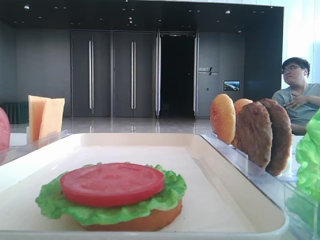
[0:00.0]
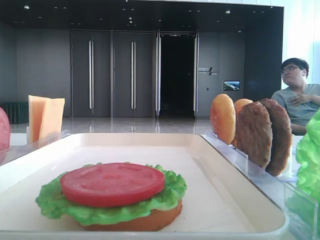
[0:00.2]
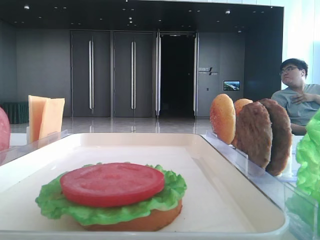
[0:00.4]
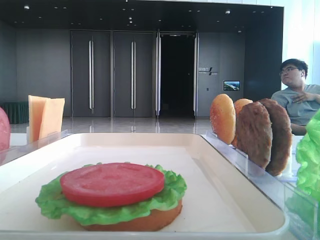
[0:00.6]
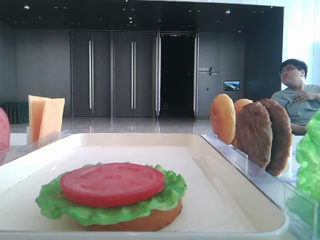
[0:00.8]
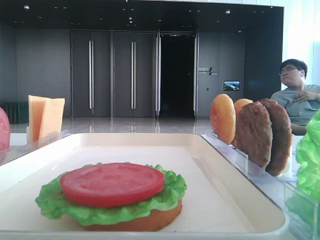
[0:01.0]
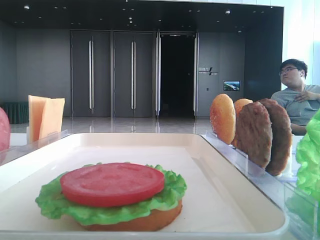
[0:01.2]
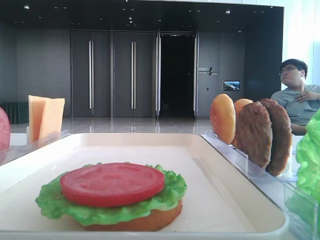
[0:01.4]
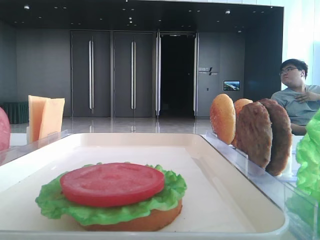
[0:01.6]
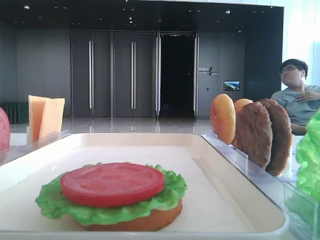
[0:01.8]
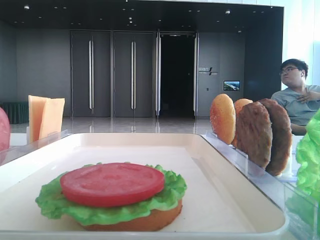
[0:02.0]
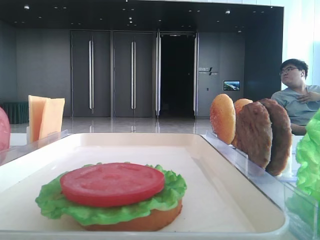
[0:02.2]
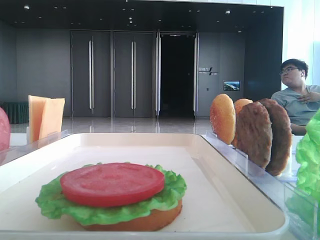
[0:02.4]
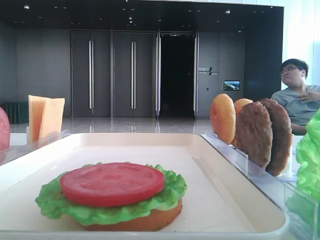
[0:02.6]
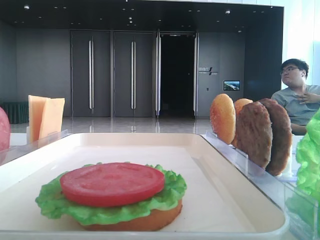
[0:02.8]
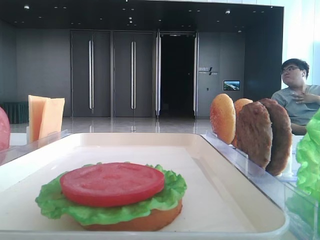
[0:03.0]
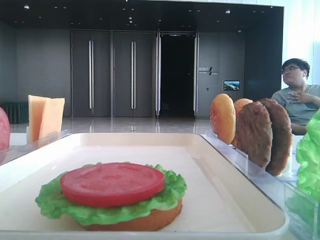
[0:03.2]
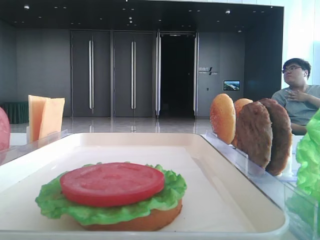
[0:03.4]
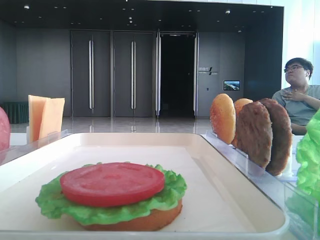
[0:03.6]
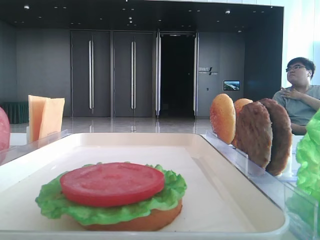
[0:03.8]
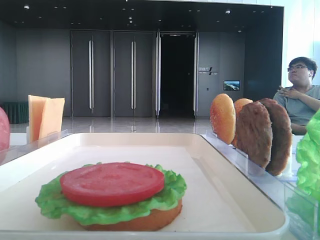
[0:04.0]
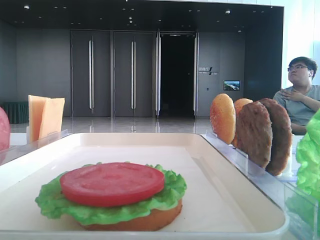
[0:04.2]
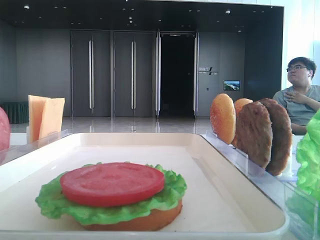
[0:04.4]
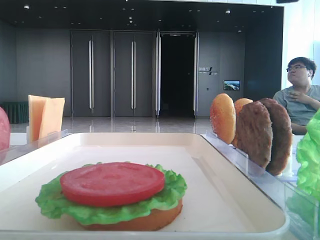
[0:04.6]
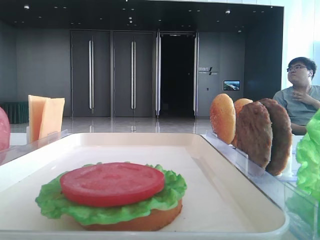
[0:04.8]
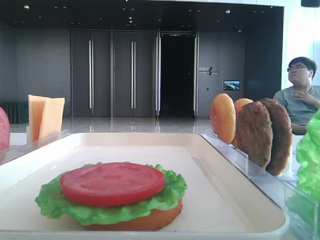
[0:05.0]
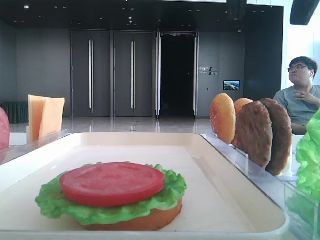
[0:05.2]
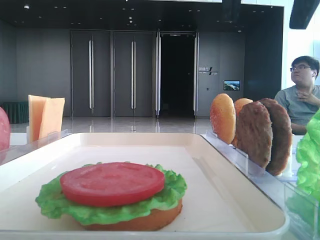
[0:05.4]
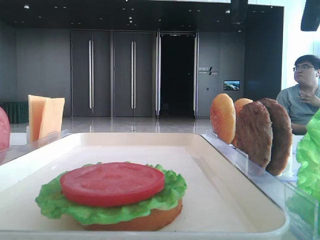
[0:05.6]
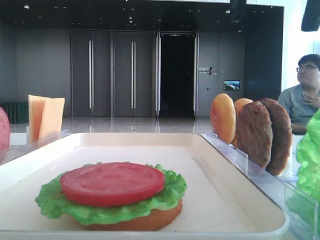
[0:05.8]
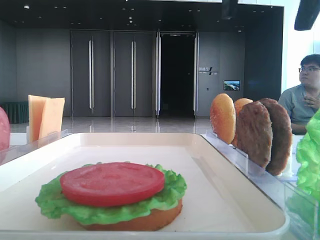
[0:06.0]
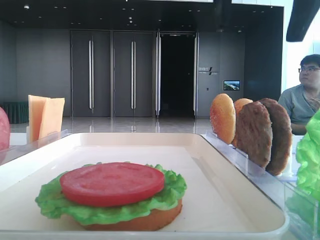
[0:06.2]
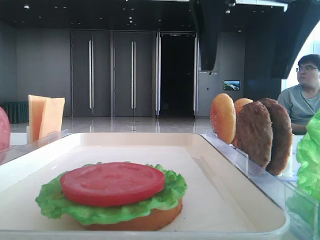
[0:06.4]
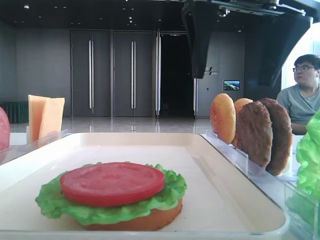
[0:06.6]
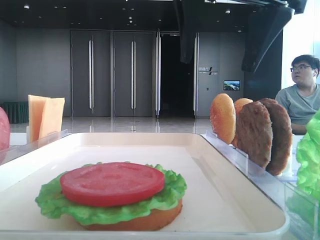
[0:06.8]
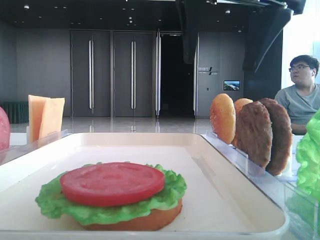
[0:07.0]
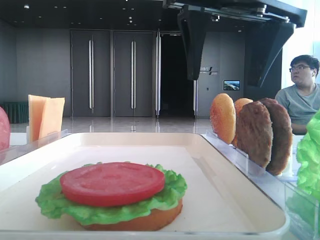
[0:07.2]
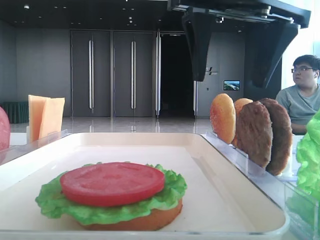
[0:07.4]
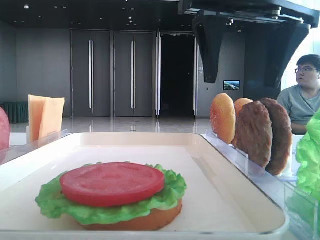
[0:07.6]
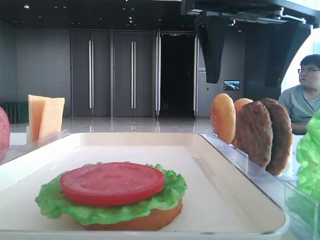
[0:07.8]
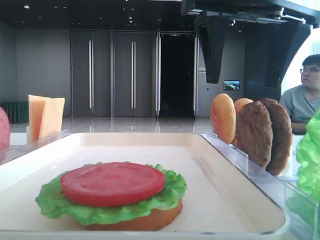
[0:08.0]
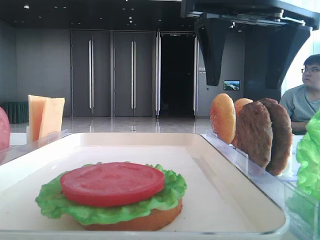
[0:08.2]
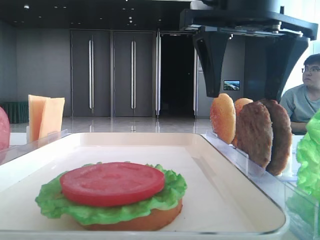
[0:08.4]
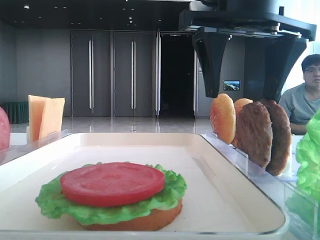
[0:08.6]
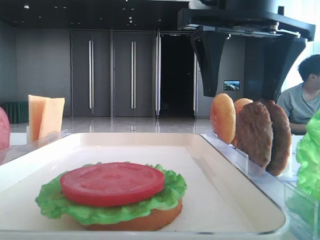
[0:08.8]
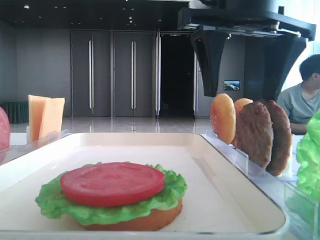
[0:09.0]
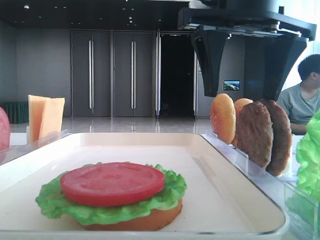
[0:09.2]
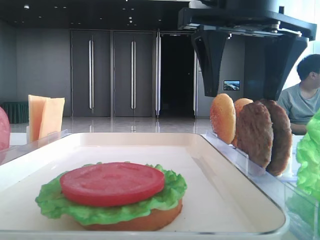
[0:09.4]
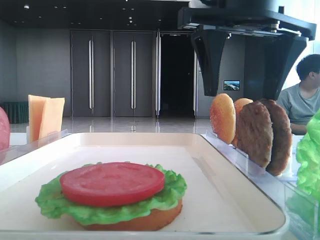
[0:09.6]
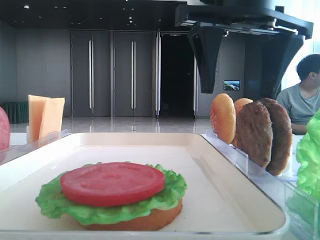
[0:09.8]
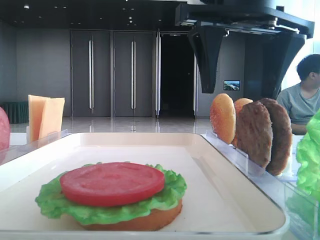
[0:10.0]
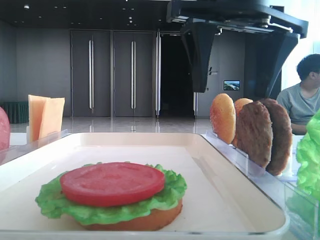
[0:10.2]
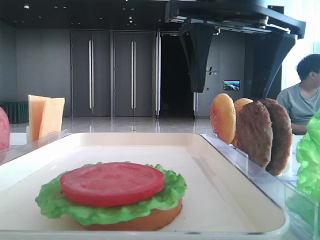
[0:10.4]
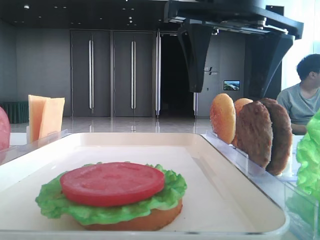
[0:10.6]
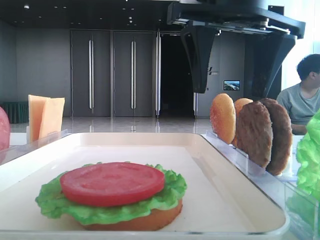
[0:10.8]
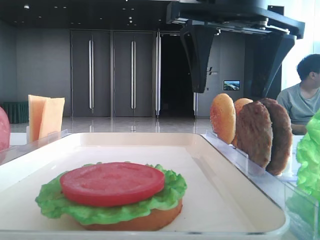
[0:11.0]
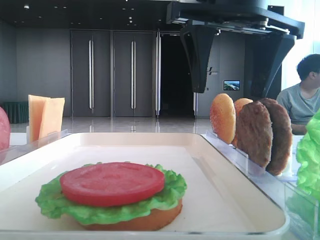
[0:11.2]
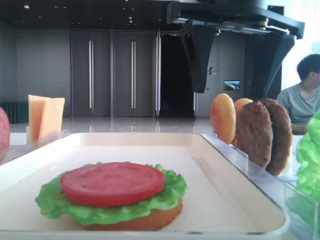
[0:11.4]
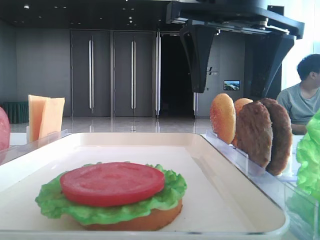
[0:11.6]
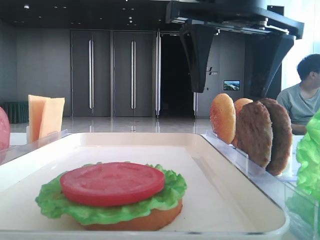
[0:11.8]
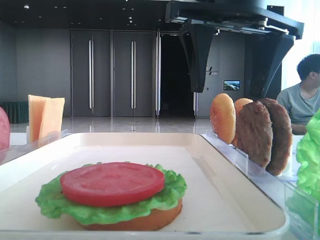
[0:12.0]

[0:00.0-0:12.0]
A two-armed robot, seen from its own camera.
0:03.0 to 0:04.4: The right gripper shifts approximately 15 cm to the left, forward and downward.
0:04.4 to 0:06.0: The right gripper is displaced forward by roughly 5 cm.
0:06.0 to 0:07.6: The right gripper goes some 10 cm forward and downward.
0:07.6 to 0:09.0: The grippers stay close to where they were, moving slightly.
0:09.0 to 0:12.0: The two grippers keep their place.

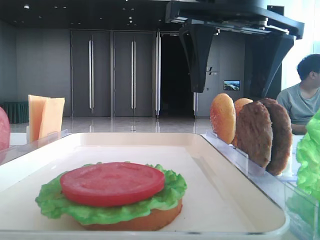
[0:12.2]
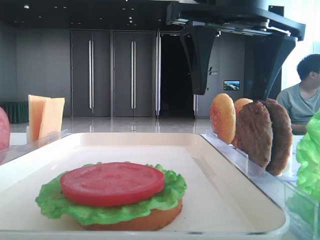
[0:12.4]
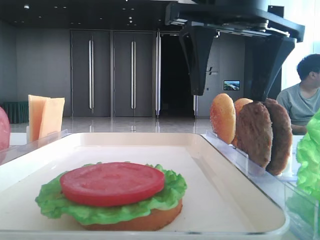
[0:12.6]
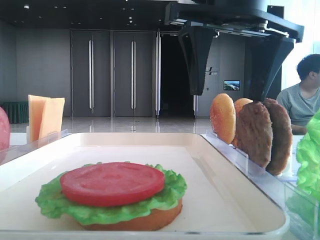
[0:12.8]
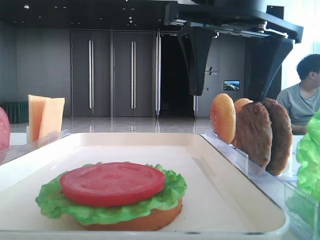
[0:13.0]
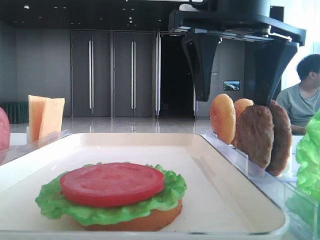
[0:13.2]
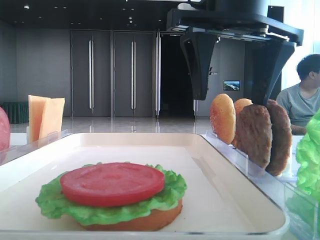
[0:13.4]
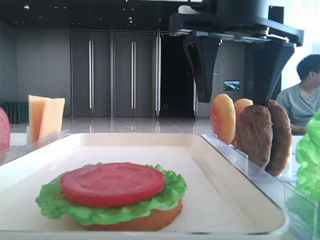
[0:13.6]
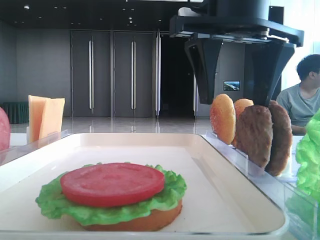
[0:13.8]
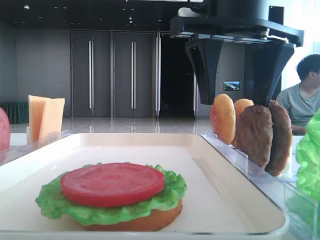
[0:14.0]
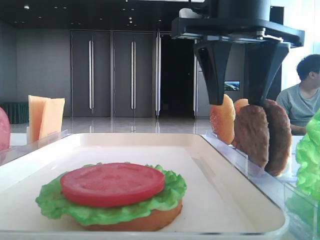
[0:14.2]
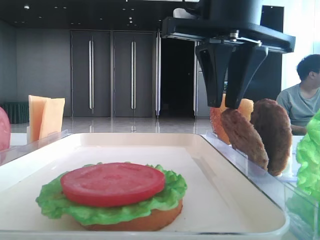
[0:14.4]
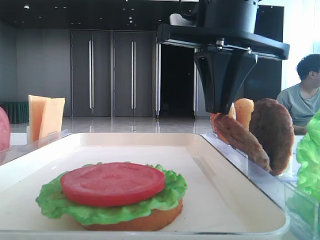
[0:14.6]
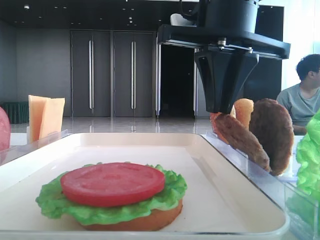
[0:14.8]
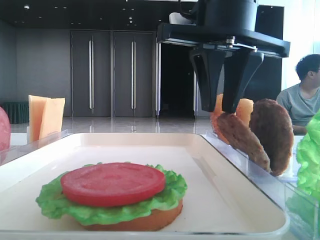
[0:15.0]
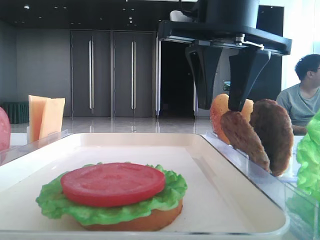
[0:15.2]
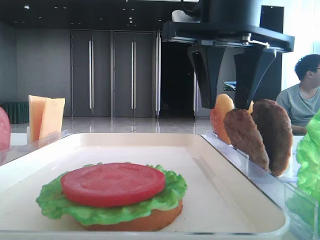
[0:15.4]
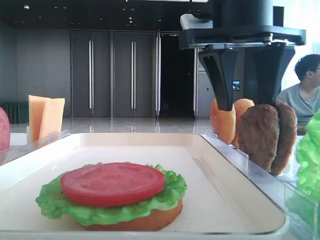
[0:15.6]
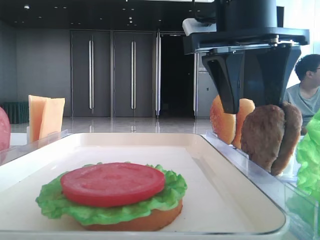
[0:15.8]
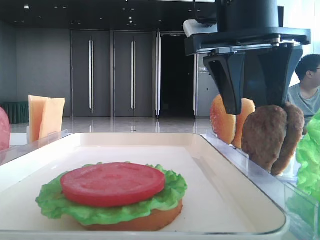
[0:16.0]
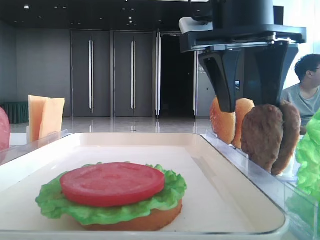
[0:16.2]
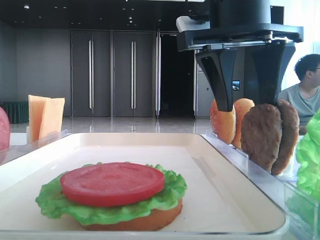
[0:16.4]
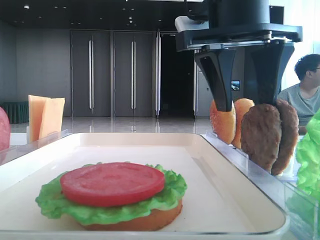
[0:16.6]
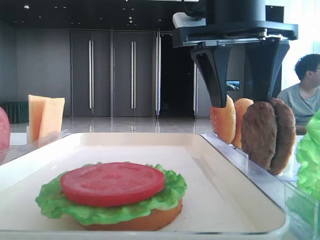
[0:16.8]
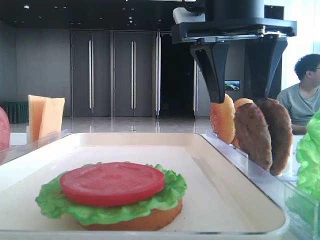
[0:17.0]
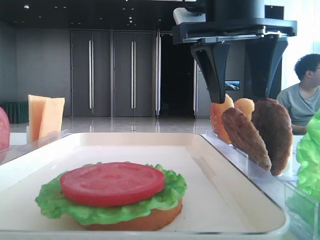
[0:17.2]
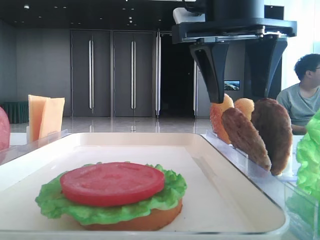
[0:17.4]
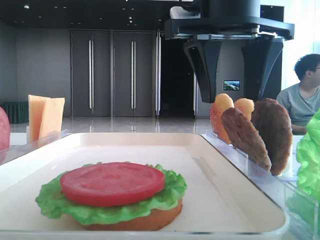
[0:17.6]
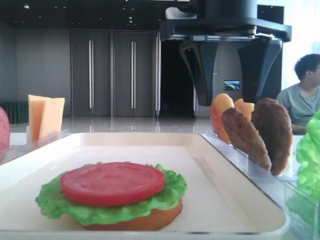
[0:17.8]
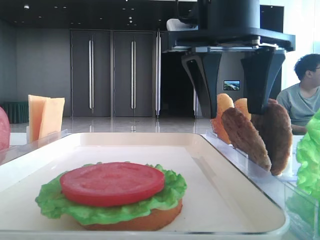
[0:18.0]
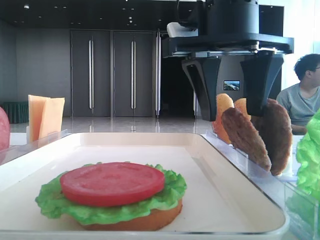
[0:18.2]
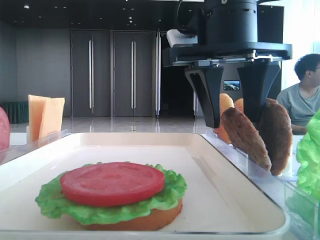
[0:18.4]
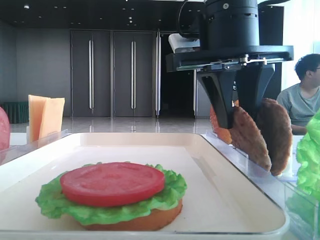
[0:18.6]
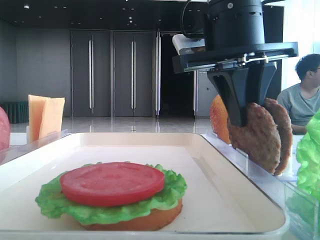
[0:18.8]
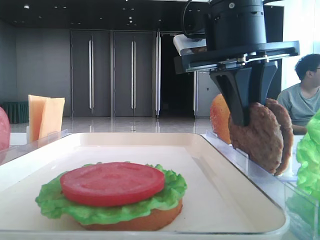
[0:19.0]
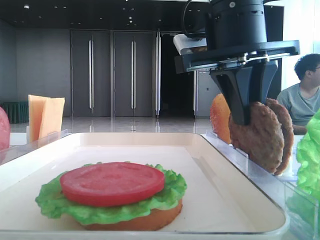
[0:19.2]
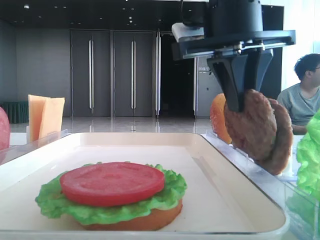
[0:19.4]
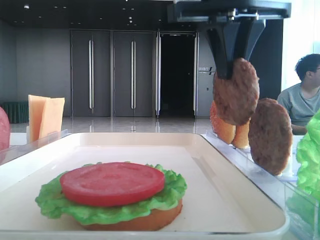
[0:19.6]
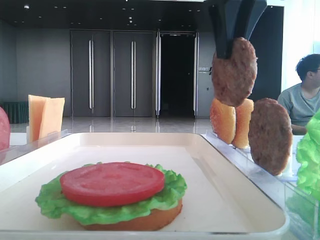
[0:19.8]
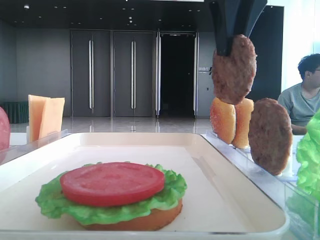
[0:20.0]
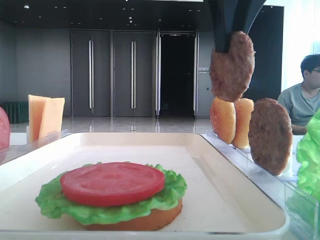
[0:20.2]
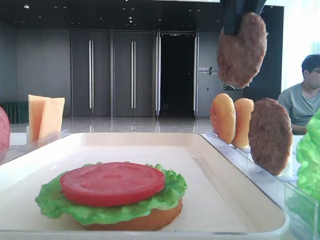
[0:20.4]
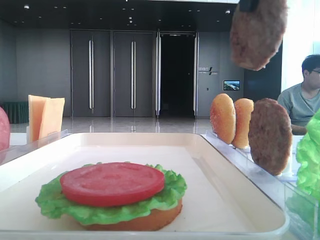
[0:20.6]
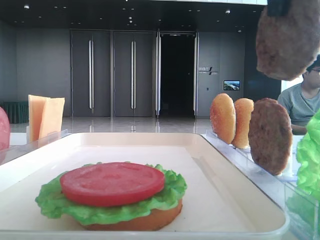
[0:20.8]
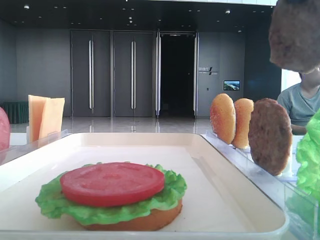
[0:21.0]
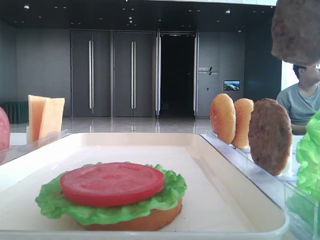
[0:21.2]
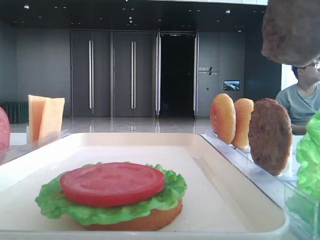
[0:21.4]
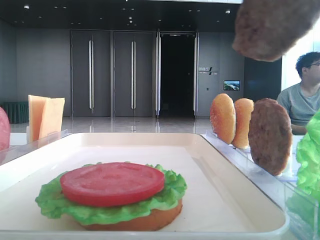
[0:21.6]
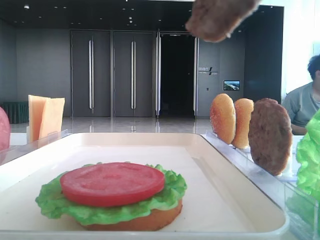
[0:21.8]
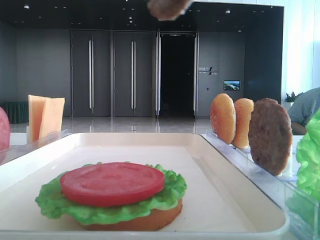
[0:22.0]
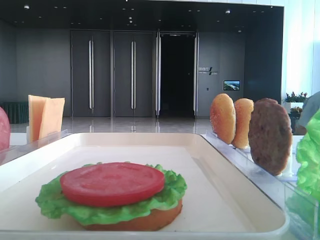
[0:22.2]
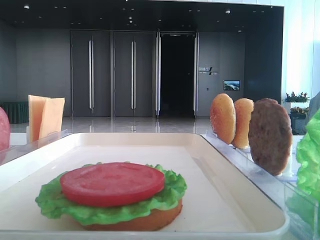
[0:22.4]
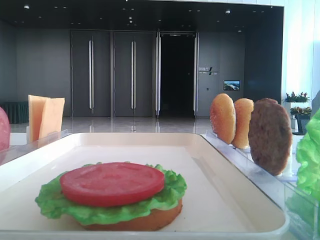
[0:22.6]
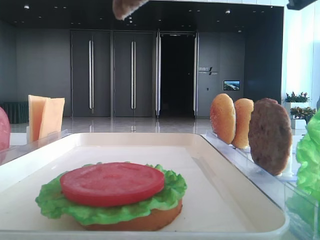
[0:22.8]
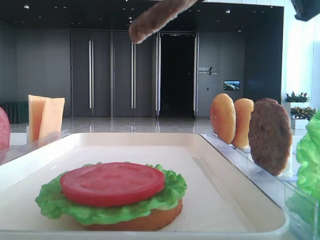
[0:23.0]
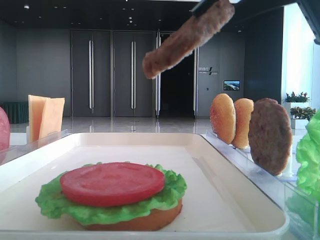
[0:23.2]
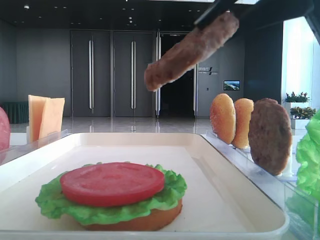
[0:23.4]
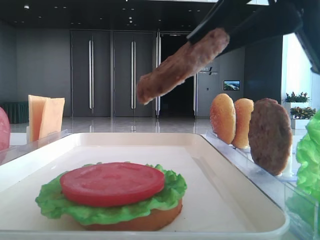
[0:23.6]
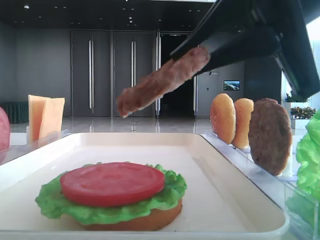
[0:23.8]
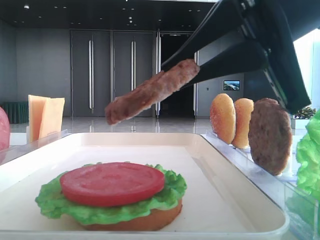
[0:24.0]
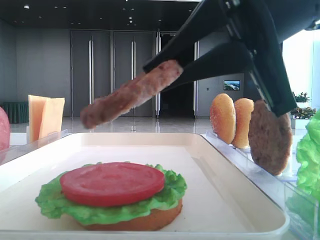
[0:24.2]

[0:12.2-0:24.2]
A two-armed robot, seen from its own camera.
Step, 0:12.2 to 0:19.0: Grab the patty with the right hand.
0:12.2 to 0:13.8: There are only small adjustments of the grippers.
0:13.8 to 0:15.2: The right gripper closes.
0:15.2 to 0:18.2: The grippers stay close to where they were, moving slightly.
0:18.2 to 0:19.8: The right gripper travels upward by approximately 5 cm, and closes.
0:19.8 to 0:21.2: The right gripper goes roughly 10 cm backward.
0:22.6 to 0:24.2: The right gripper is displaced downward by roughly 10 cm.
